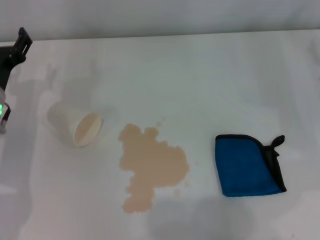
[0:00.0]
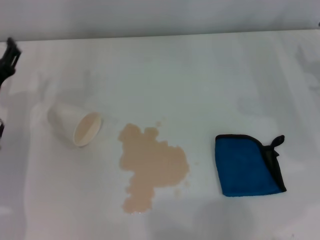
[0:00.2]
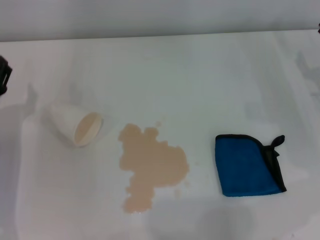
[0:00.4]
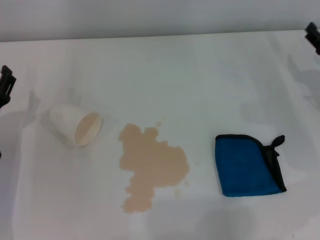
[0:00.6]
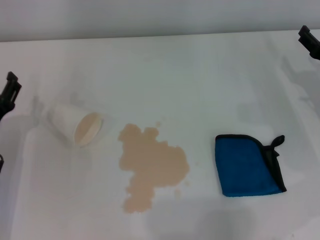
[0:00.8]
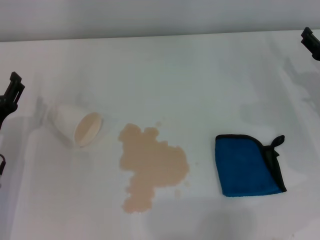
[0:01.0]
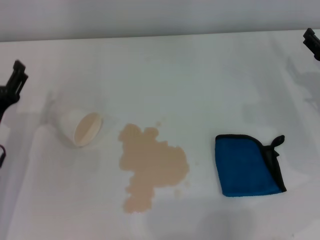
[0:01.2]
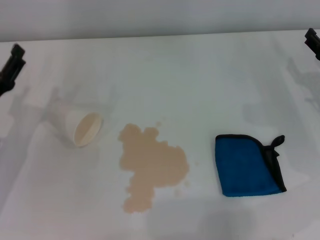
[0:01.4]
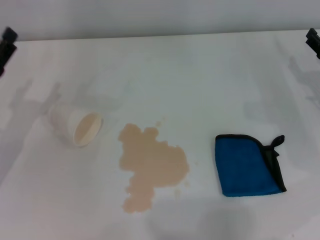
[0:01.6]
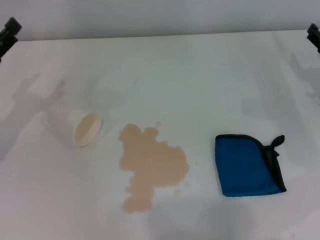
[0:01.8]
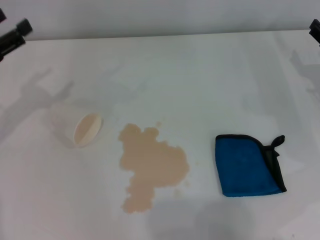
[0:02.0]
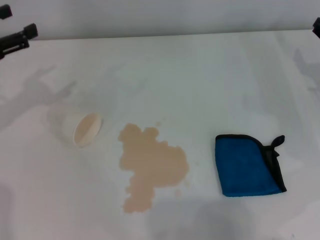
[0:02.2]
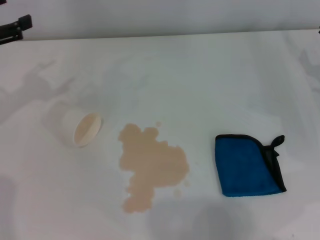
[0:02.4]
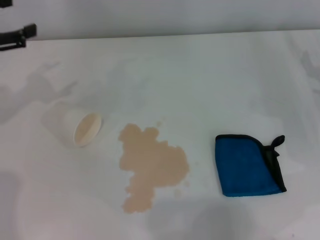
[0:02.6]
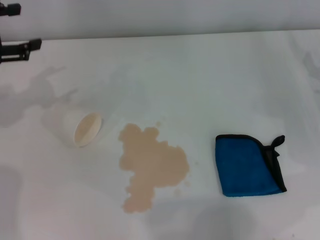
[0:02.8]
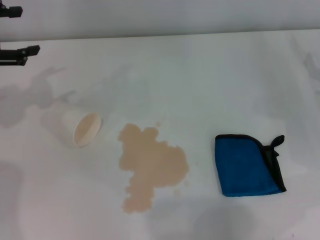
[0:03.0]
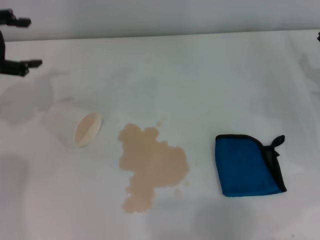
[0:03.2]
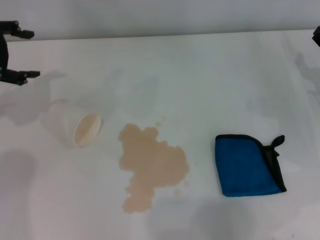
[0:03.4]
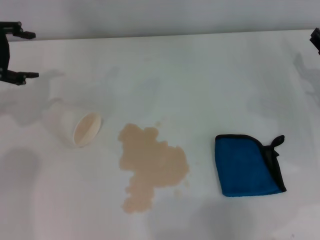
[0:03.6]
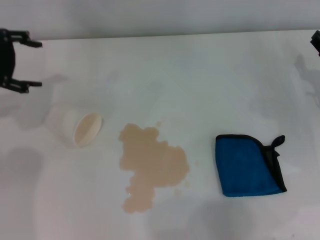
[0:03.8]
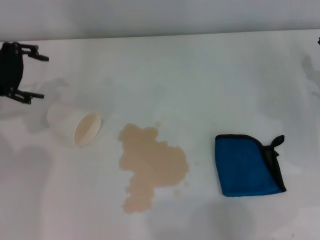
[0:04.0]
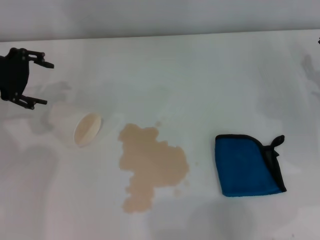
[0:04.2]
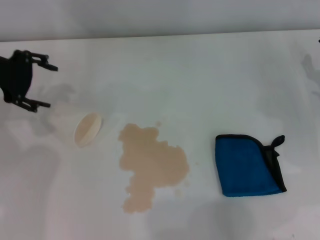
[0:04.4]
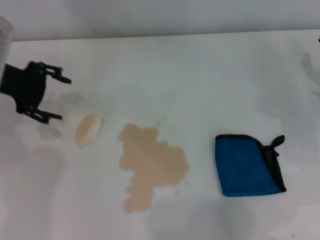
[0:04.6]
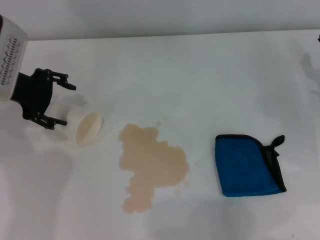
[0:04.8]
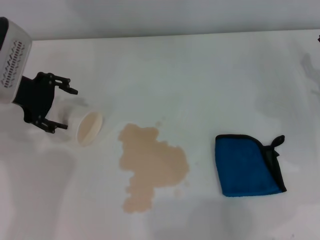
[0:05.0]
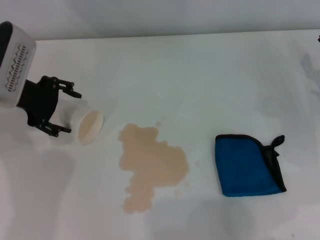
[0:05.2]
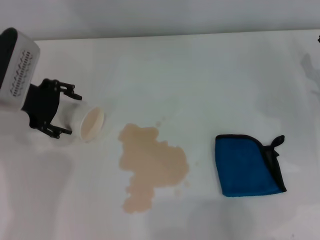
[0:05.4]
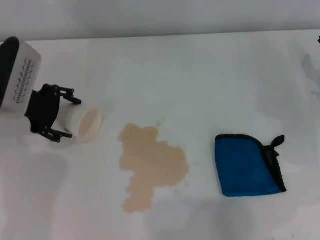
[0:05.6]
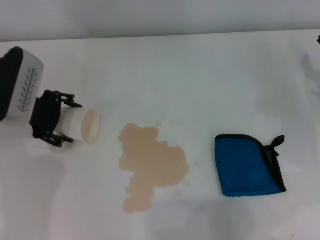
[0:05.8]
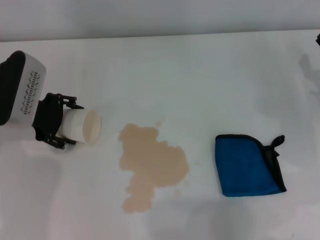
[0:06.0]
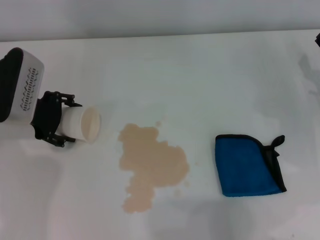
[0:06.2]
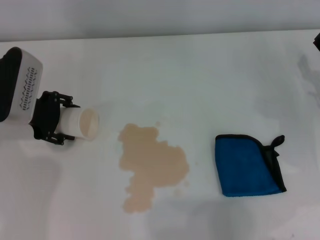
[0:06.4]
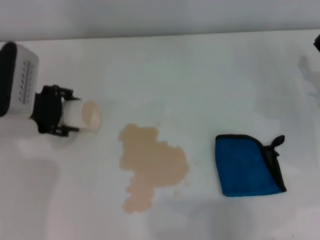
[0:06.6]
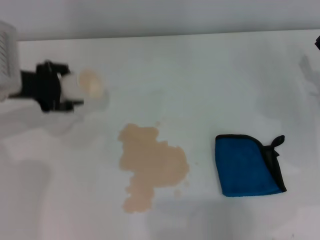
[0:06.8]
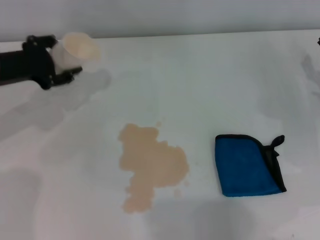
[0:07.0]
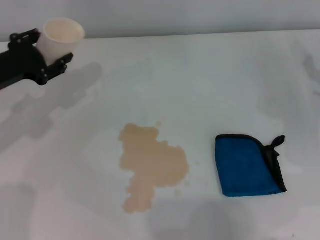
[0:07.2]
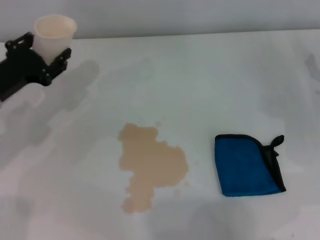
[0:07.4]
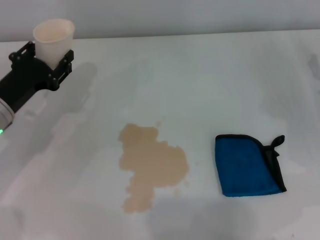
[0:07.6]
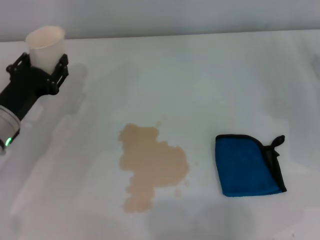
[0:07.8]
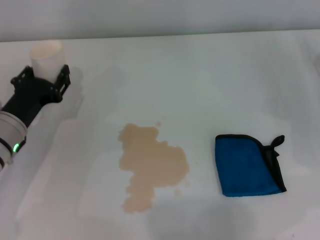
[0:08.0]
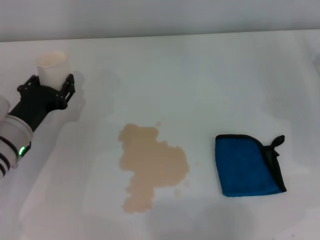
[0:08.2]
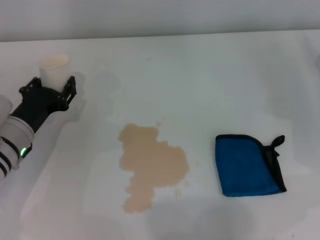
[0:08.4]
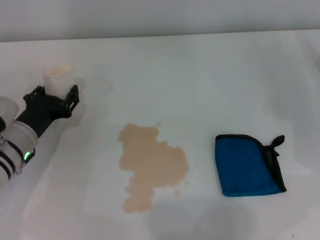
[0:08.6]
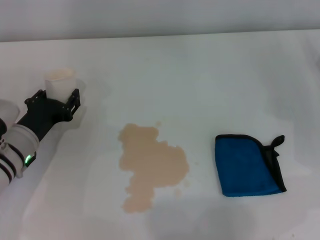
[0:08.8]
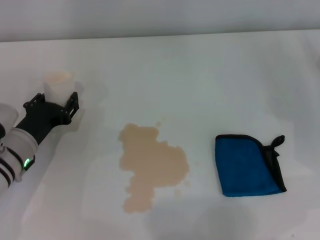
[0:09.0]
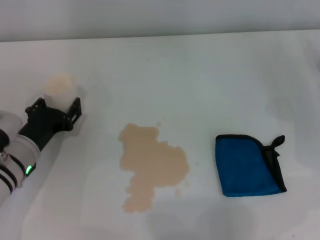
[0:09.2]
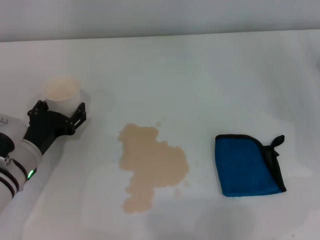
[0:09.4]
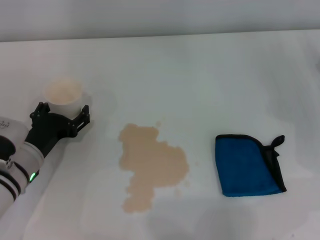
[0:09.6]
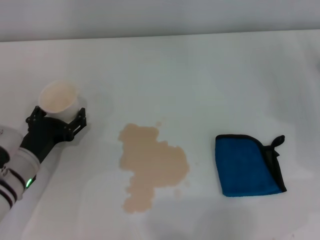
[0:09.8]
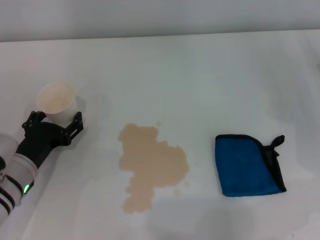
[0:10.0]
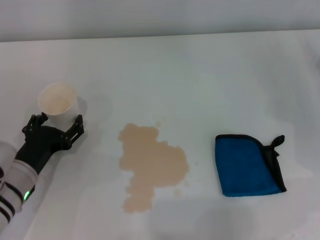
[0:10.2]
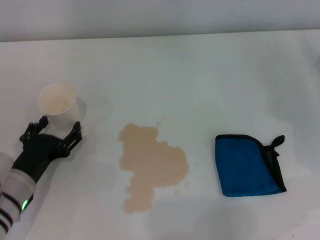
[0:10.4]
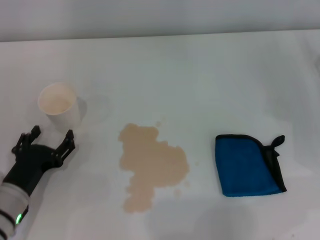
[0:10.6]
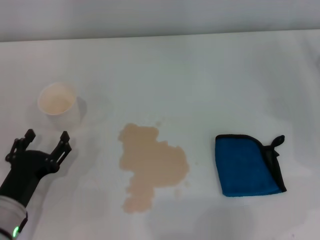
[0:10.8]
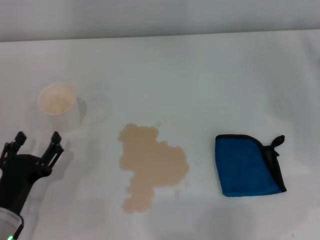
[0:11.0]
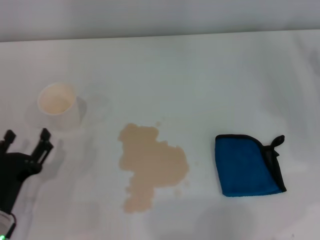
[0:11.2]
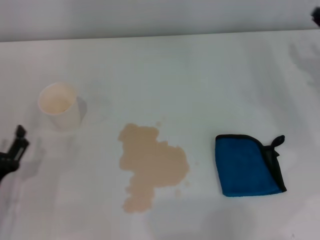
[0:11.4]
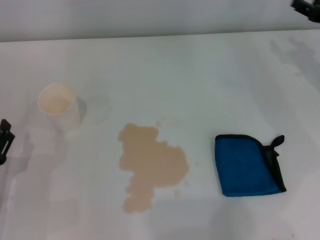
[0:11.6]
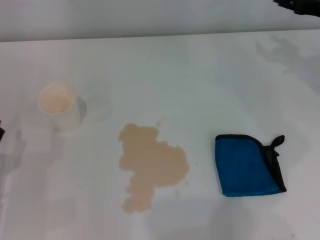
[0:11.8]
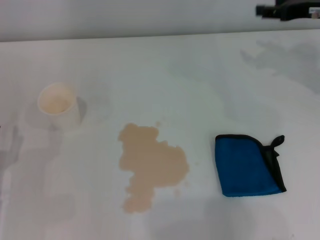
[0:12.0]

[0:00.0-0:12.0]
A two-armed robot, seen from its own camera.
Step, 0:00.0 to 0:05.2: Grasp the paper cup with the left gripper.
Step, 0:05.4 to 0:09.8: Stand the paper cup upright with the left gripper.
0:00.0 to 0:01.6: The left gripper is displaced backward by about 5 cm.
0:01.6 to 0:03.0: The left gripper shifts some 15 cm upward and forward.
0:03.0 to 0:04.4: The left gripper is displaced to the right by some 5 cm.
0:04.4 to 0:06.0: The left gripper goes approximately 5 cm downward.
0:06.0 to 0:07.6: The left gripper heads backward, covering roughly 5 cm, and closes.
0:07.6 to 0:09.0: The left gripper shifts roughly 5 cm downward.
0:09.0 to 0:10.4: The left gripper travels backward by about 5 cm, and opens.
0:10.4 to 0:12.0: The left gripper moves to the left, approximately 5 cm; the right gripper is displaced upward and forward by some 15 cm.

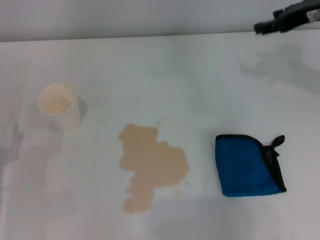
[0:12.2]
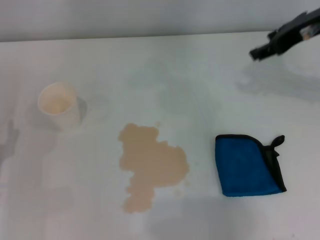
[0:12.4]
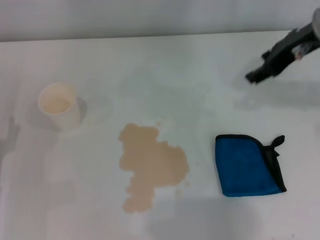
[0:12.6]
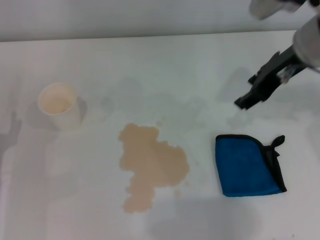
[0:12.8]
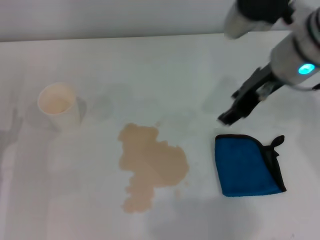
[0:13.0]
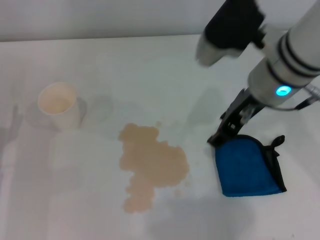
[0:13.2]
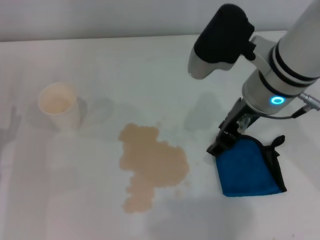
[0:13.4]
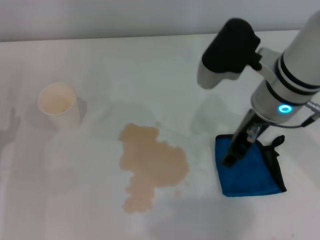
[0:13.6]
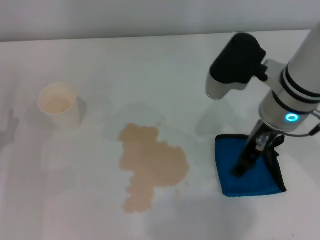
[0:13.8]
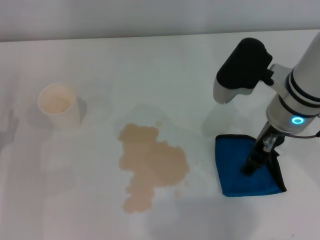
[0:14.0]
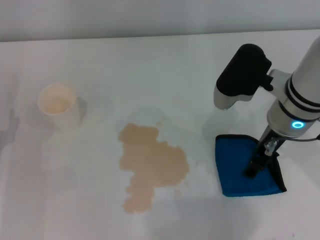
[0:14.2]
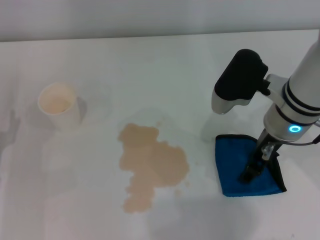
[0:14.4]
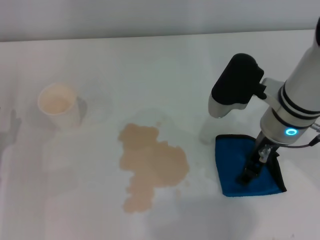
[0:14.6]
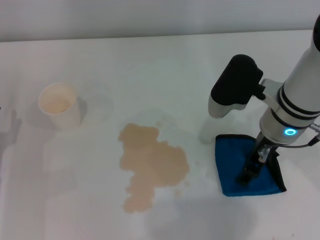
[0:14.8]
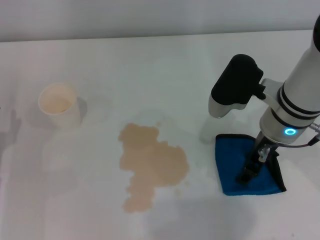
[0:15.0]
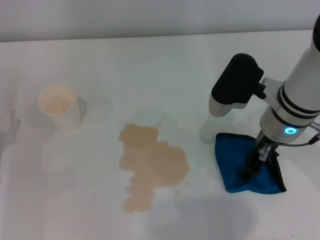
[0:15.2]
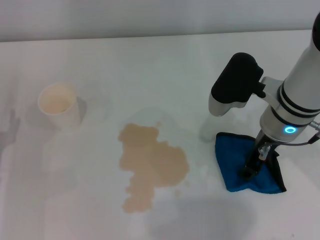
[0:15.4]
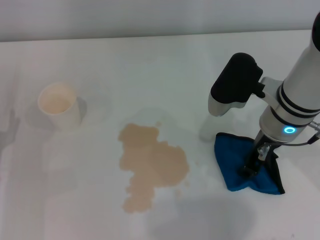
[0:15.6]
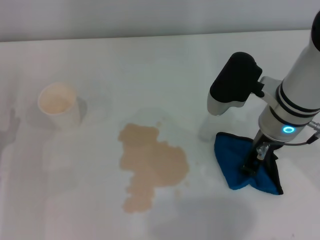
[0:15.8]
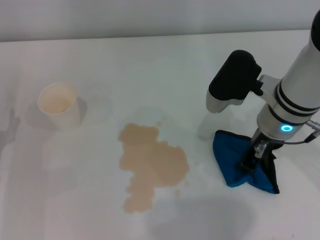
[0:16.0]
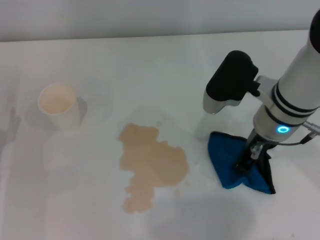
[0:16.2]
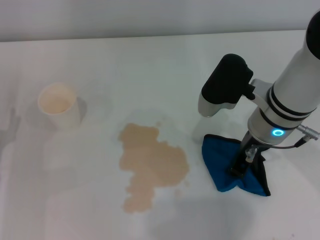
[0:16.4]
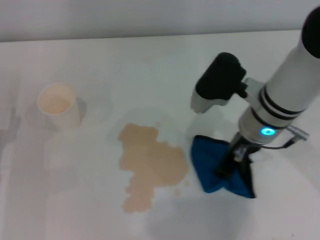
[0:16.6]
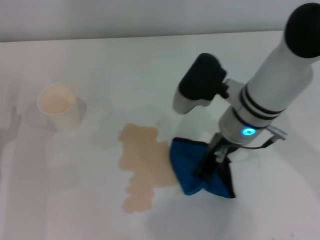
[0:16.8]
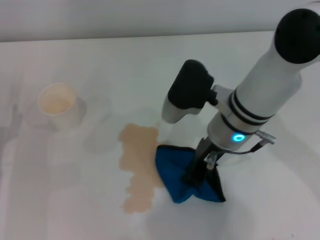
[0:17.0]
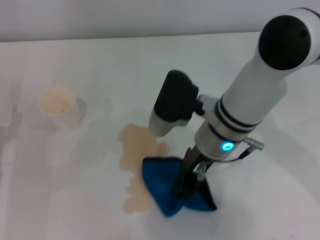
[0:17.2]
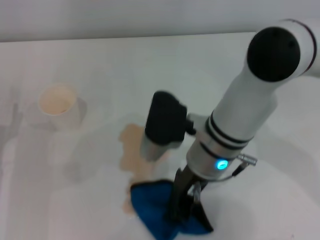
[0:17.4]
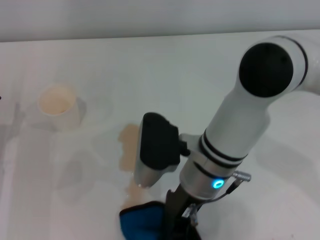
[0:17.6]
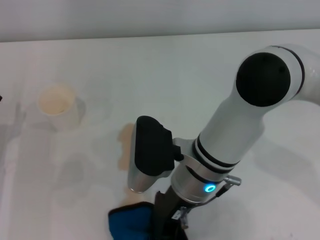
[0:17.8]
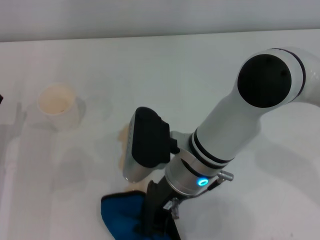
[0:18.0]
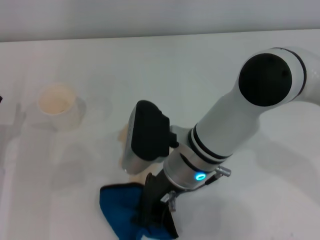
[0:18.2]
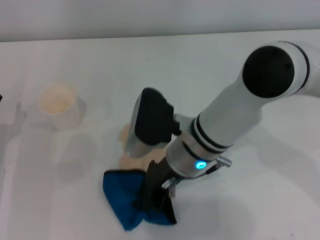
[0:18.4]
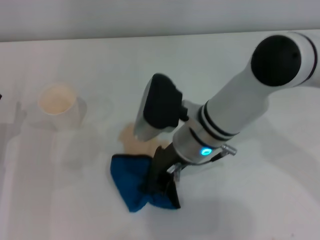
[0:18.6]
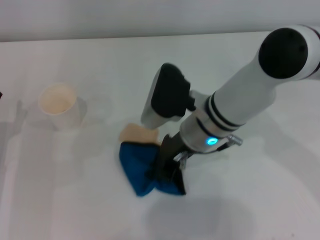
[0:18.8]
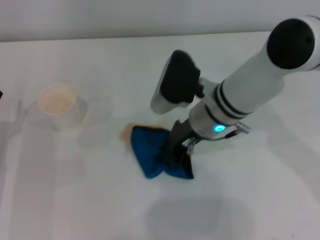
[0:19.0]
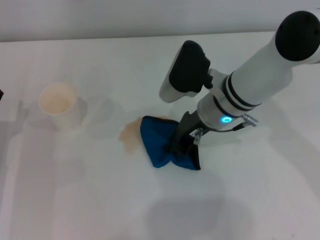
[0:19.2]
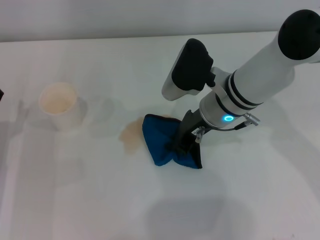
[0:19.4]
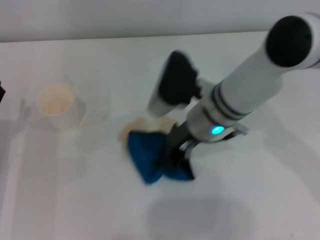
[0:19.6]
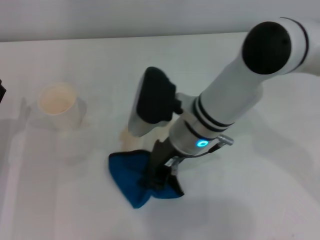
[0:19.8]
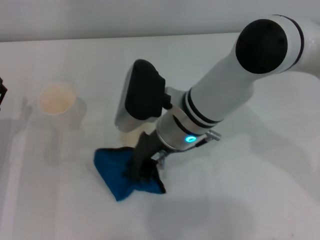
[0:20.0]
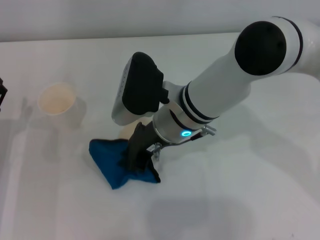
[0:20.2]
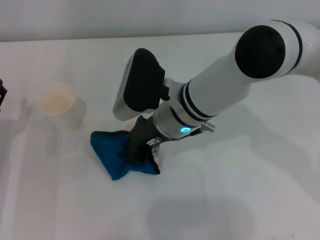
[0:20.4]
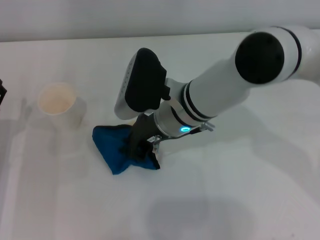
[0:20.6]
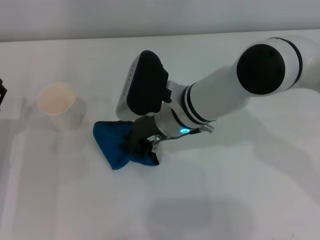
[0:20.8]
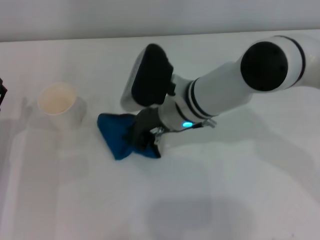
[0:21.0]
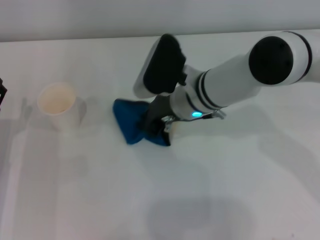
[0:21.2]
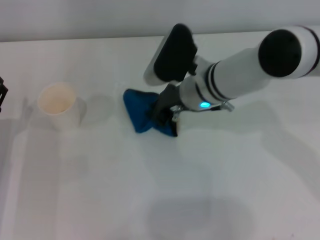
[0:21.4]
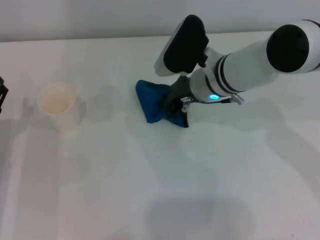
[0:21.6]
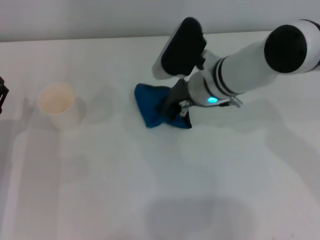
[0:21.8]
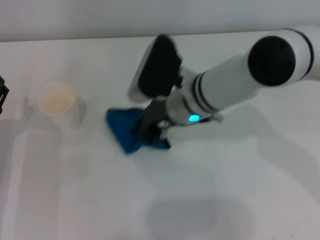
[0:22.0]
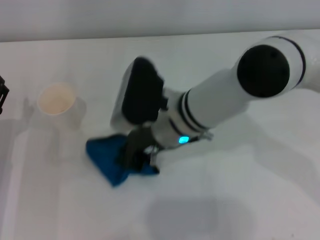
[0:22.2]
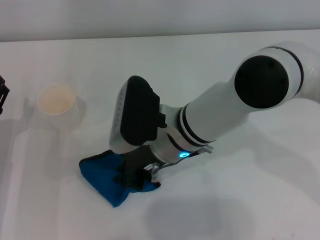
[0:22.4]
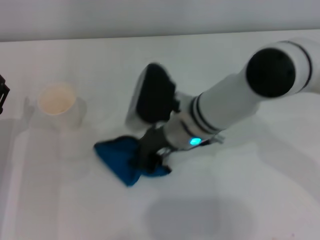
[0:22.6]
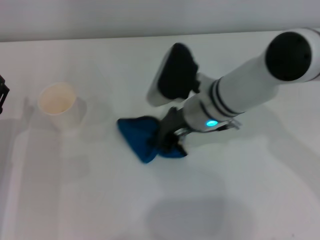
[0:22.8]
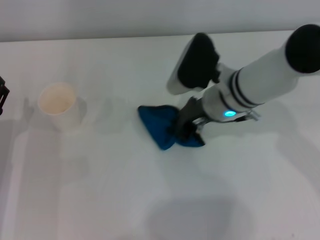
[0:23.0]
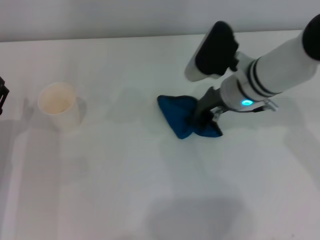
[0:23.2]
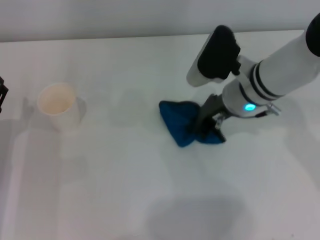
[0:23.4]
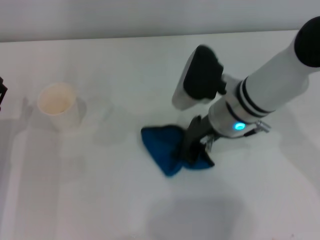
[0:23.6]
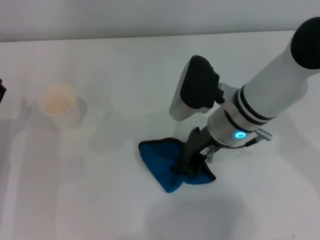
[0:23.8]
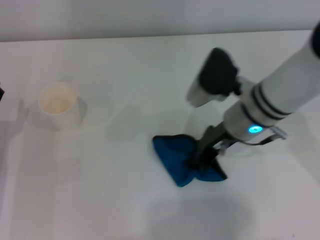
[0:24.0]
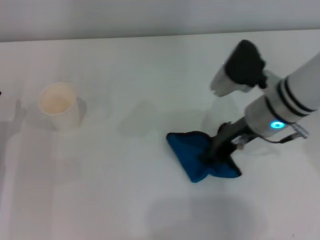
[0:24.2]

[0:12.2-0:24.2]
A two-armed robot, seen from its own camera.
Step, 0:12.2 to 0:15.8: Grasp the rag with the right gripper.
0:12.2 to 0:13.8: The right gripper shifts about 15 cm to the left, backward and downward.
0:13.8 to 0:15.2: The grippers move only a little.
0:15.2 to 0:16.6: The right gripper closes.
0:16.6 to 0:18.2: The right gripper goes approximately 10 cm to the left.
0:22.6 to 0:24.2: The right gripper shifts some 10 cm to the right.
